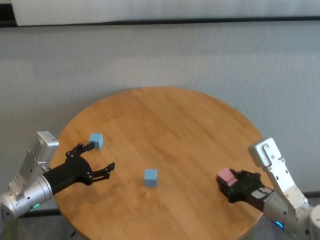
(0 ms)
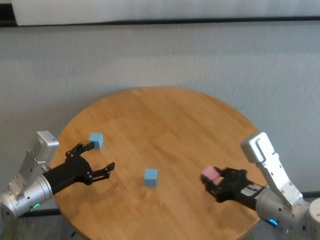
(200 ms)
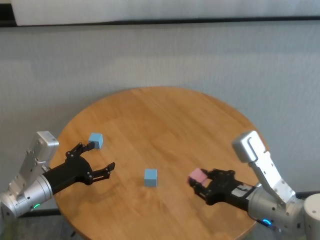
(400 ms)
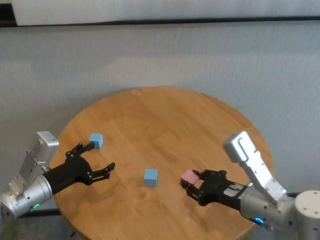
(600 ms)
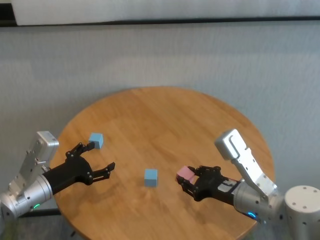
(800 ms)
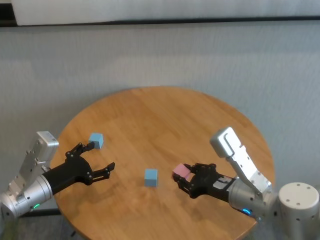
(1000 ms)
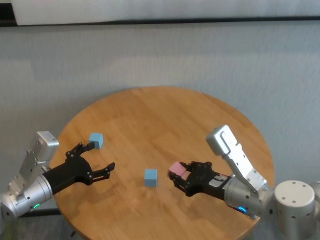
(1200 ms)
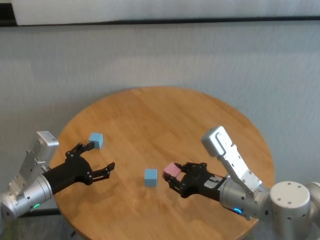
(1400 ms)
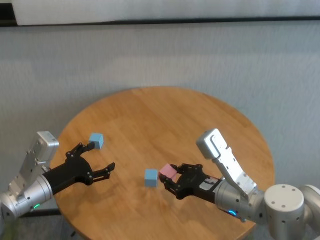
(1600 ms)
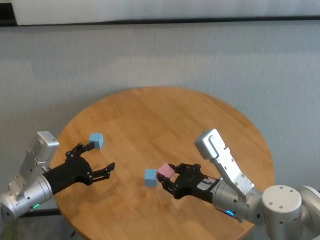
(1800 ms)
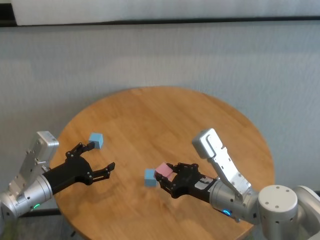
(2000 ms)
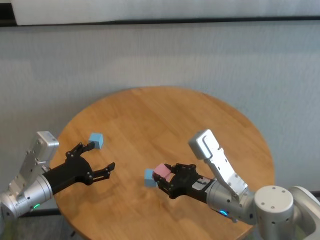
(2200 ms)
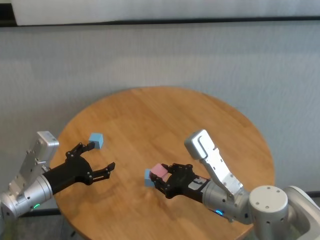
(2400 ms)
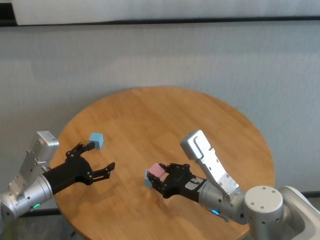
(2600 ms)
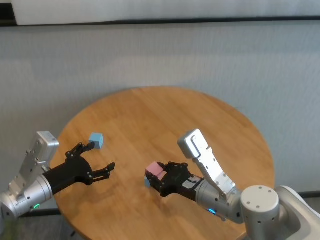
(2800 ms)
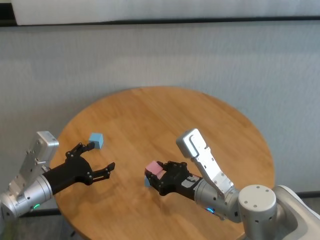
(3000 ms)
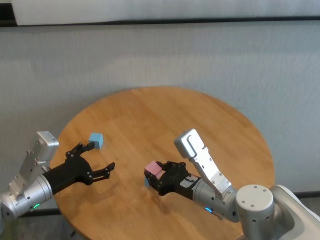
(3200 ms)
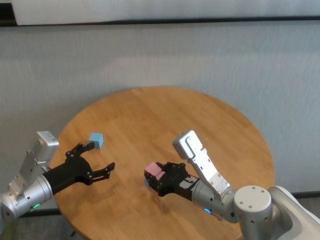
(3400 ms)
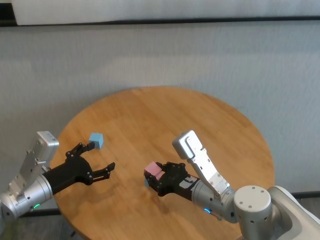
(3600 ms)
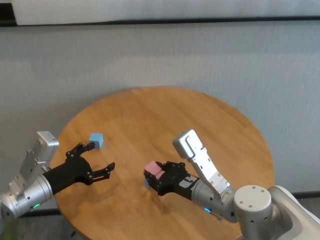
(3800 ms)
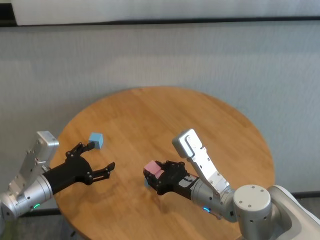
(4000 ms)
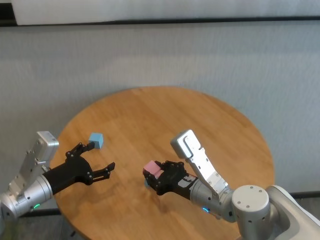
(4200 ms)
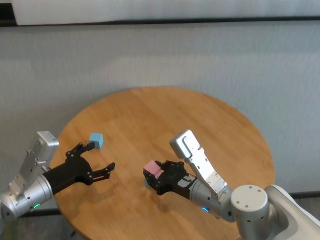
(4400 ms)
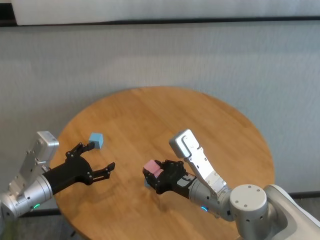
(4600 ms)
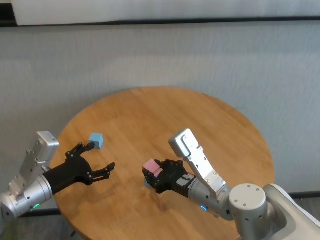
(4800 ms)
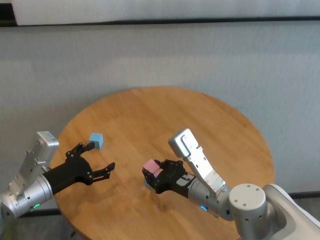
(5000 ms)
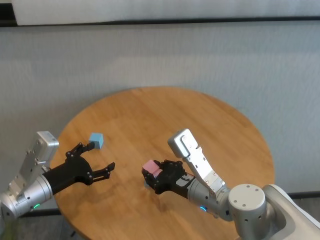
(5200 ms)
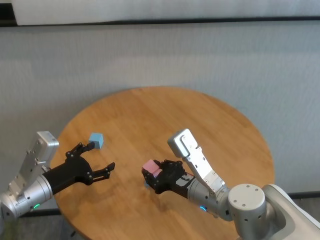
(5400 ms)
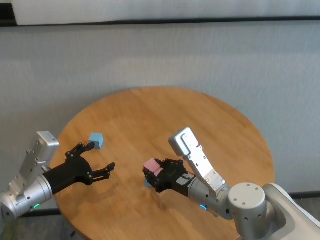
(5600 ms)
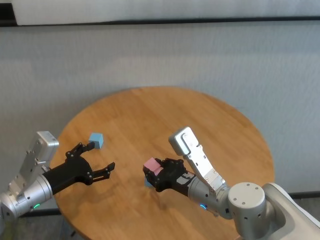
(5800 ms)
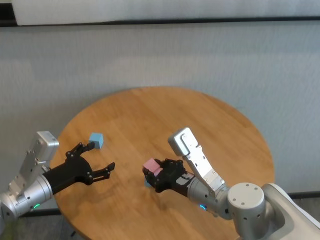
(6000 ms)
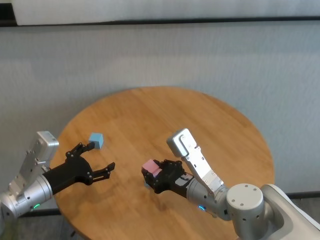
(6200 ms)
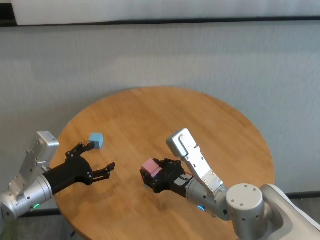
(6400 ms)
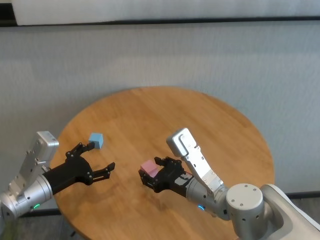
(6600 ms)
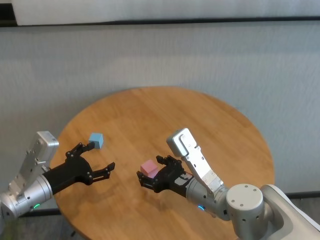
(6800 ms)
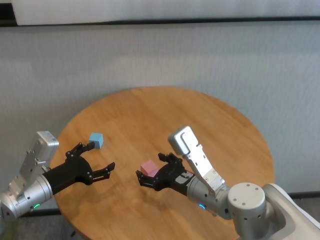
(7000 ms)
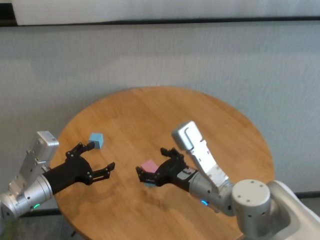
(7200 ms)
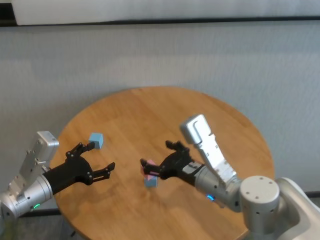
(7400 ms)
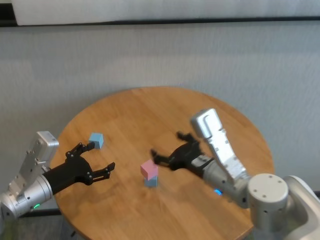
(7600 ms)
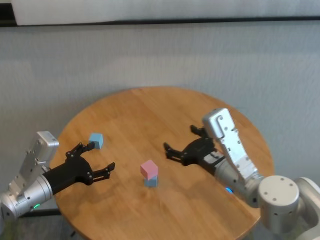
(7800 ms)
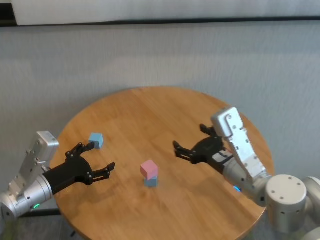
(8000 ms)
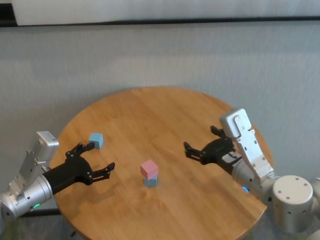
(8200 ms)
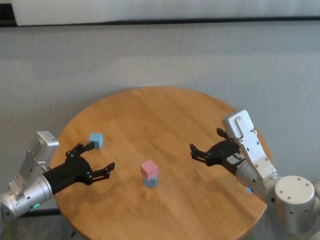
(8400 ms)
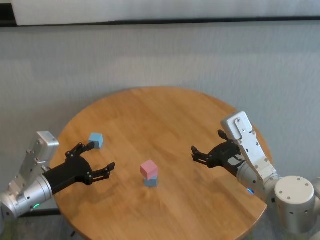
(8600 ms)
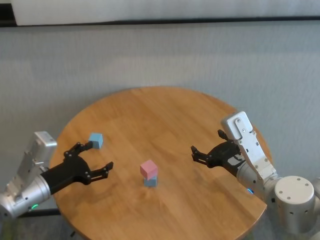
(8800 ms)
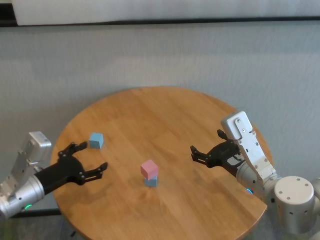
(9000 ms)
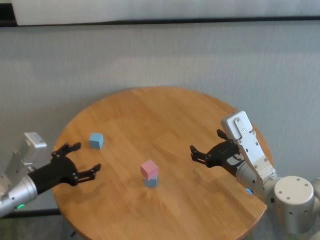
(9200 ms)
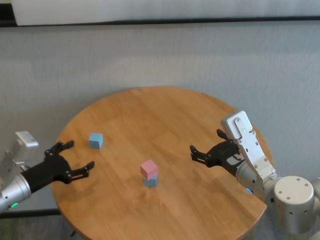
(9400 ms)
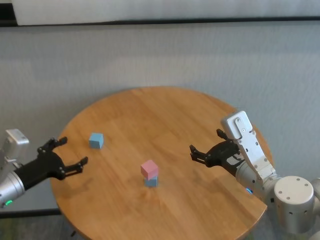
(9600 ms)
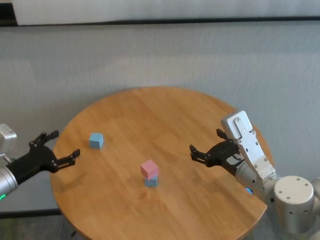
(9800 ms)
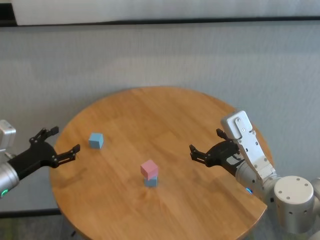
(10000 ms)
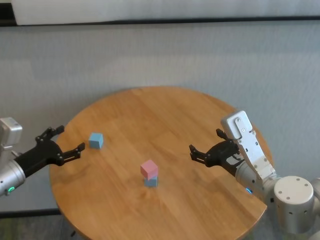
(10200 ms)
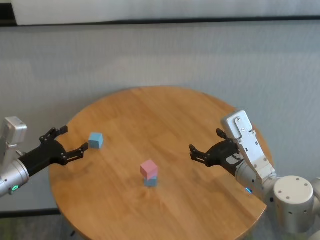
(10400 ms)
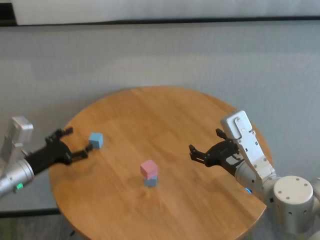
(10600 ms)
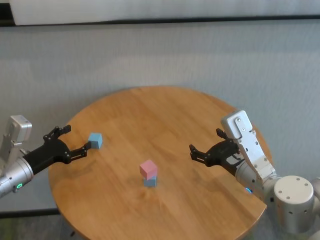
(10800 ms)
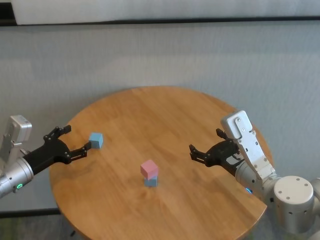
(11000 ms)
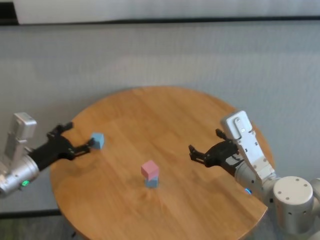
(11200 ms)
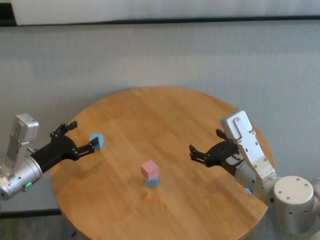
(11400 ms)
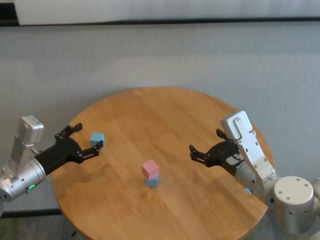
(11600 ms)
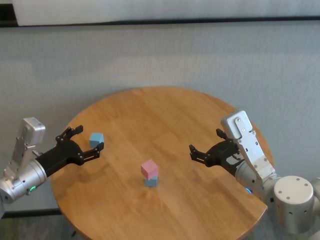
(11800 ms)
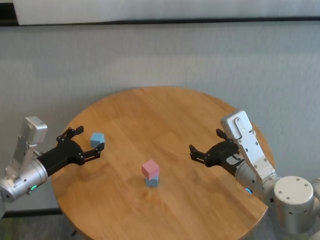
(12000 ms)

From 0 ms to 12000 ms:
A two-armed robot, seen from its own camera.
Task of the whole recording: stack building blocks on the table.
Step, from 0 ms to 6400 ms: Place the pink building block on the blue building blocks with right gripper.

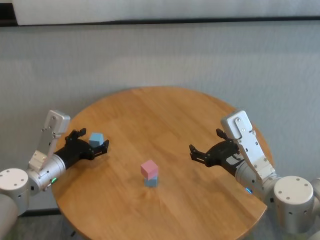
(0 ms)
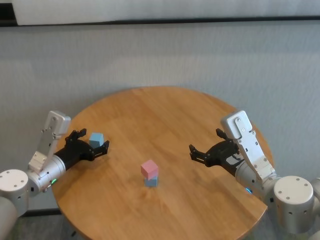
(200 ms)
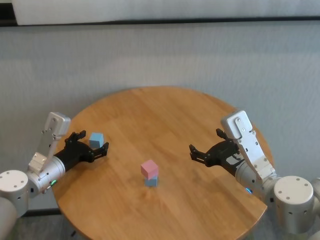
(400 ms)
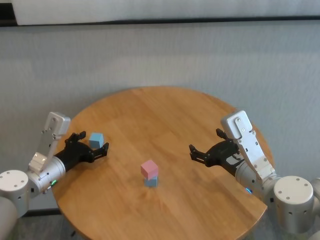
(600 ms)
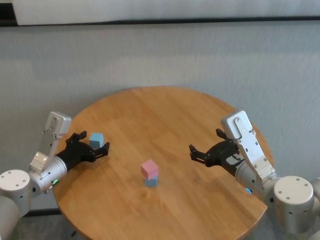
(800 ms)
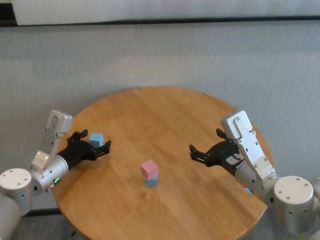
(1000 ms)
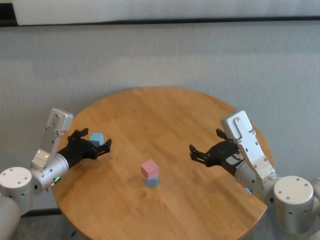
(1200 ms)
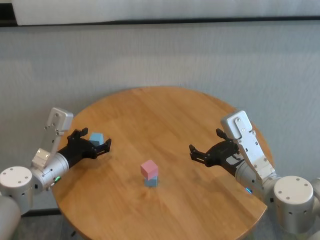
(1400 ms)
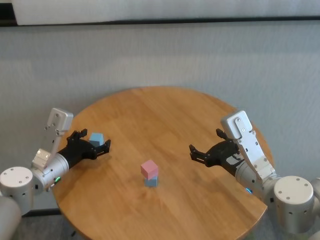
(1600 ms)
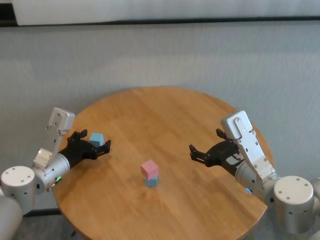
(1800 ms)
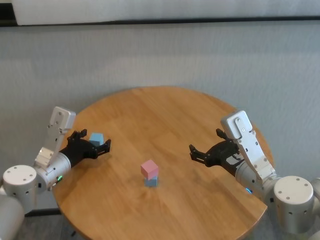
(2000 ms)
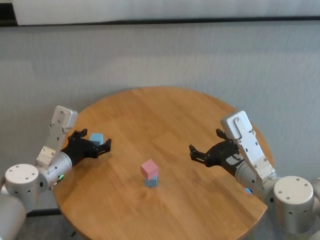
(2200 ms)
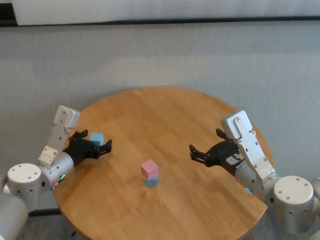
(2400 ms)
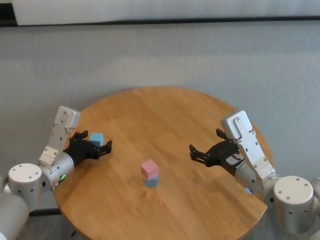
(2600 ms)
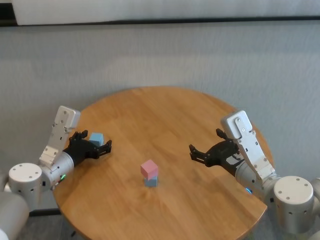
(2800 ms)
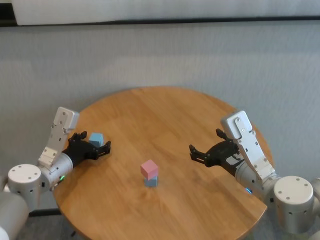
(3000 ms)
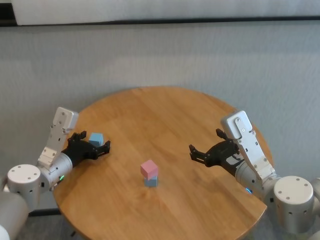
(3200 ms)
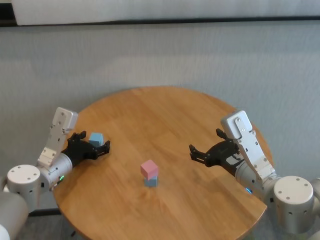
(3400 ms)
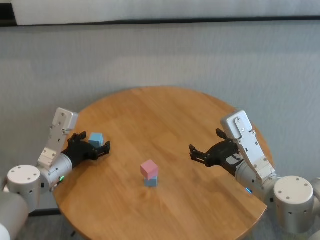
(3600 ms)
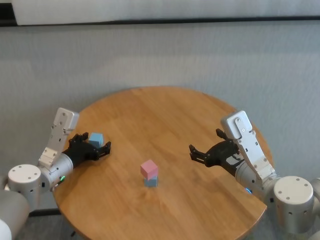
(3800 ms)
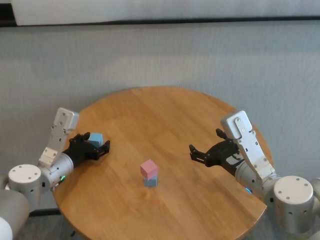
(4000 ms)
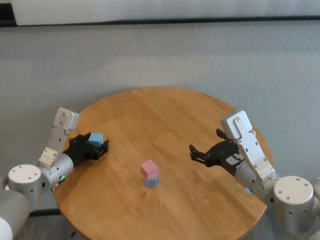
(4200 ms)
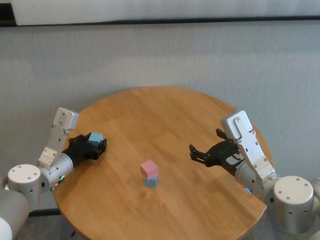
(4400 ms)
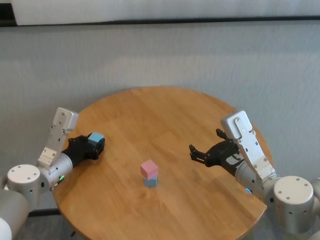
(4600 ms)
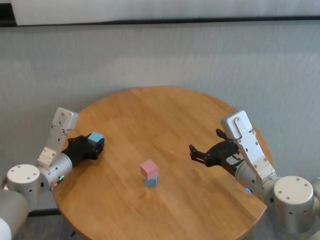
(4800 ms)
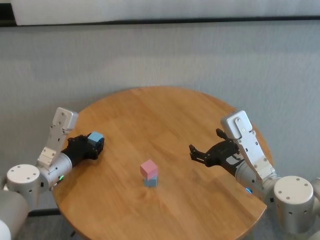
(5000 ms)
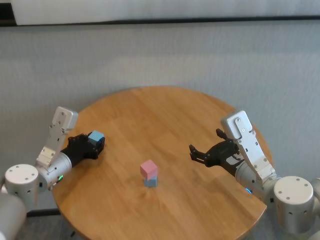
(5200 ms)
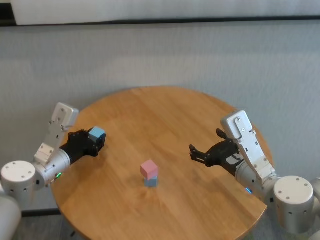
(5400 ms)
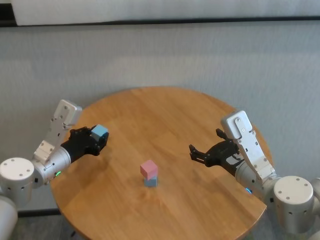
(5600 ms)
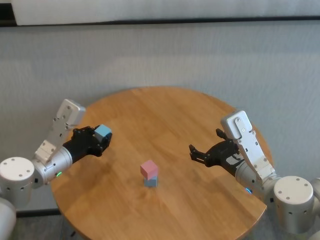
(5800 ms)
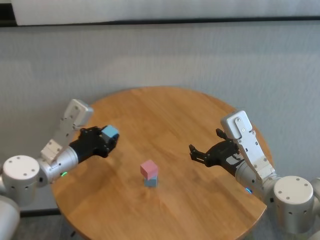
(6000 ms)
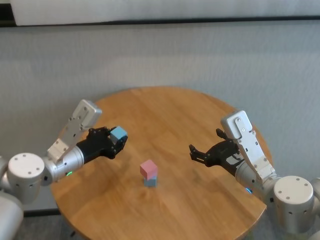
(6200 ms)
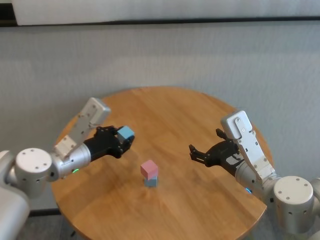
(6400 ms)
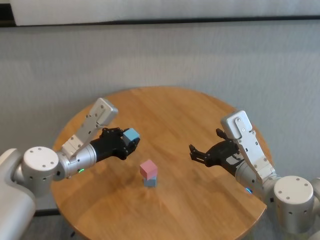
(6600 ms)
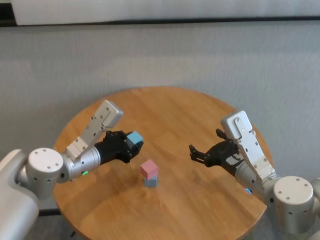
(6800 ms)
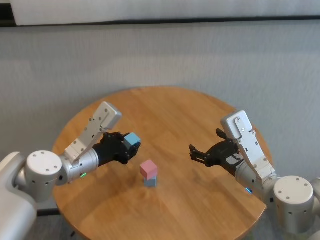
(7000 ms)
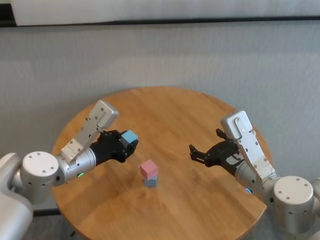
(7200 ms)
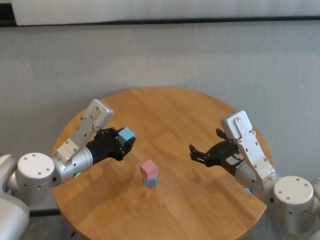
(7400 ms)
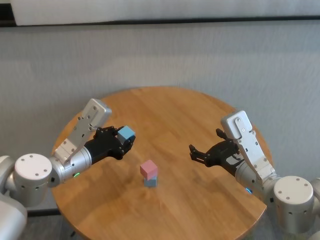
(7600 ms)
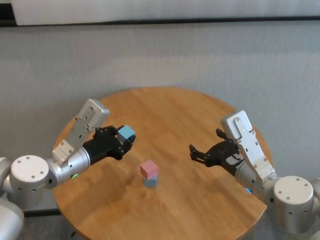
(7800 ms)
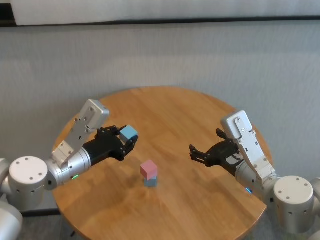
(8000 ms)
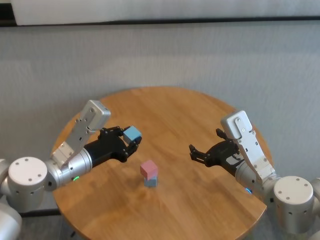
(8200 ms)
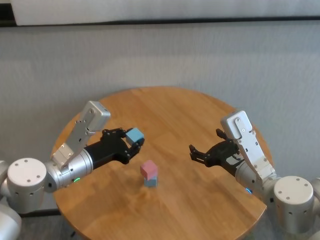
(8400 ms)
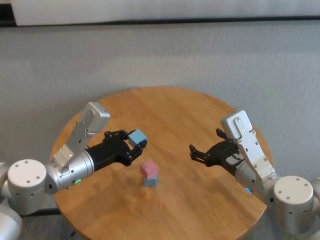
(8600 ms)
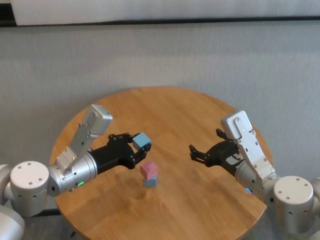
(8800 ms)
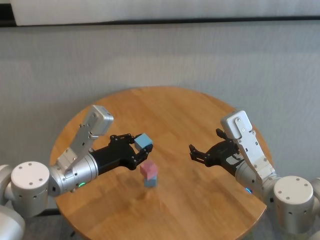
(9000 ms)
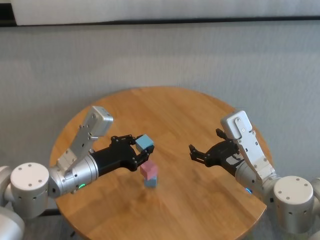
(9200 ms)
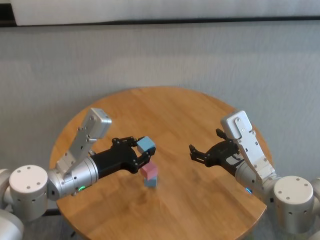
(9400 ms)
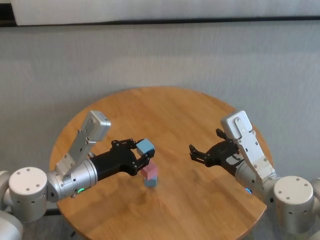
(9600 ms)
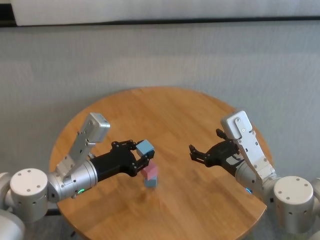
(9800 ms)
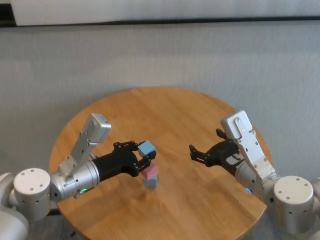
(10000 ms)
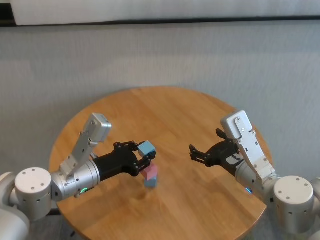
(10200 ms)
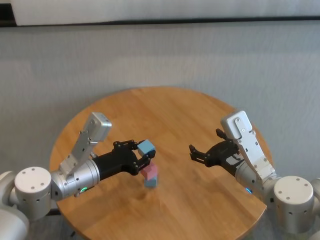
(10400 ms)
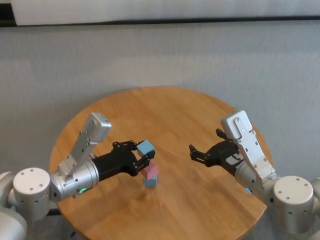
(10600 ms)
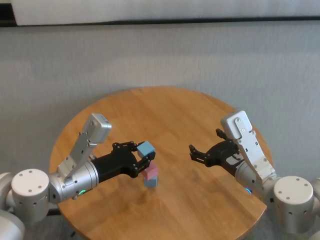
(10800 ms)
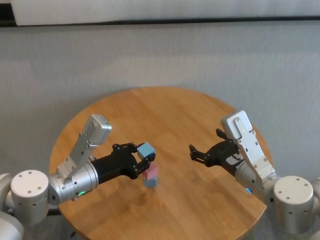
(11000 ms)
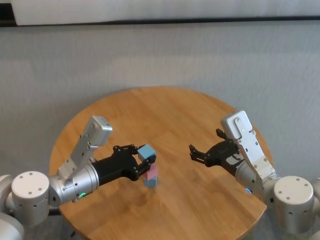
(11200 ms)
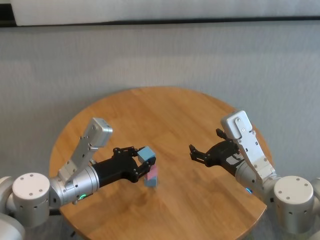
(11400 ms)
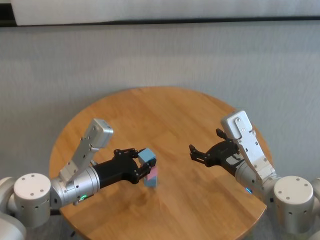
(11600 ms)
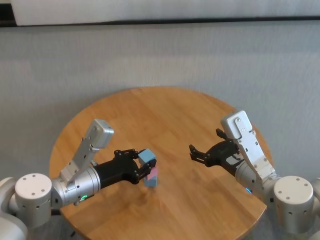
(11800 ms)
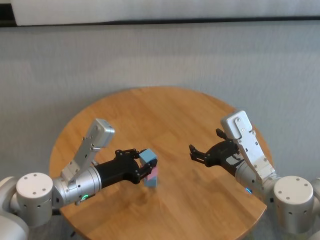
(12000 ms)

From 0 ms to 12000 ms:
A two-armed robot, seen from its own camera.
Task of the whole recording: stack building blocks on the table.
Step, from 0 ms to 4600 ms: Grasp the blue building block with left gripper.
